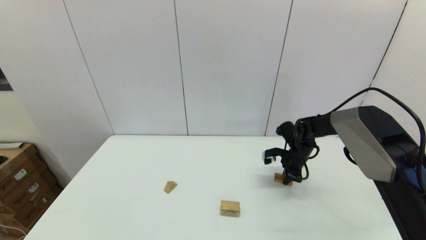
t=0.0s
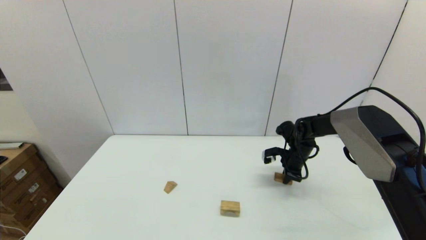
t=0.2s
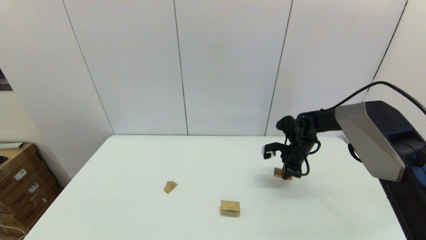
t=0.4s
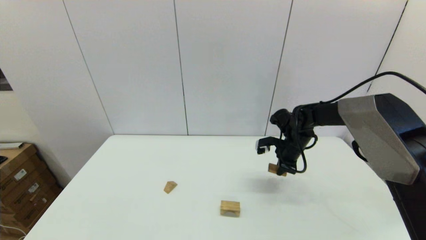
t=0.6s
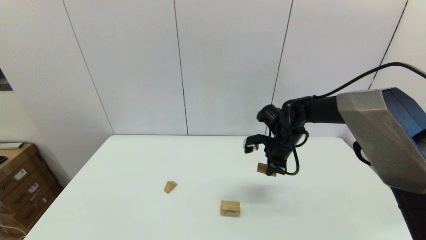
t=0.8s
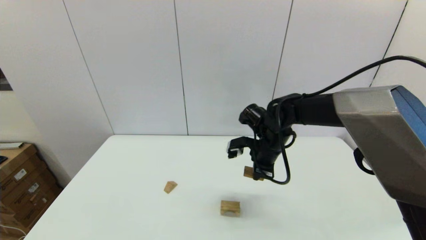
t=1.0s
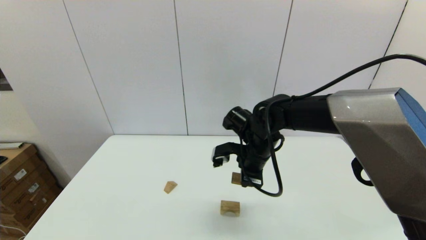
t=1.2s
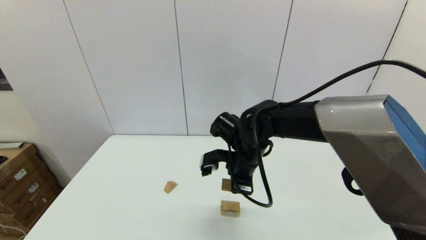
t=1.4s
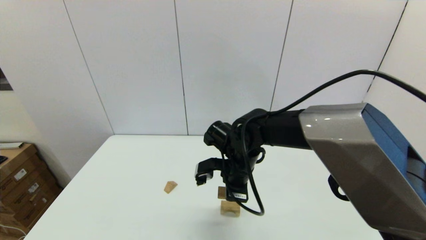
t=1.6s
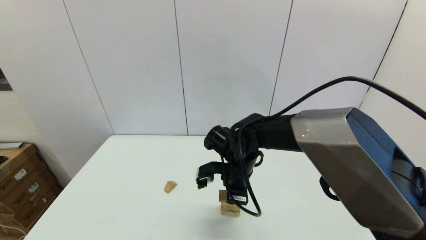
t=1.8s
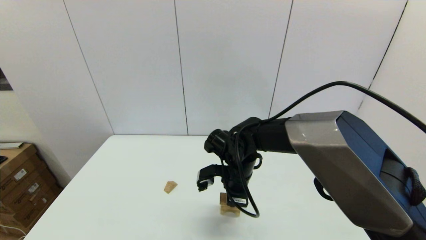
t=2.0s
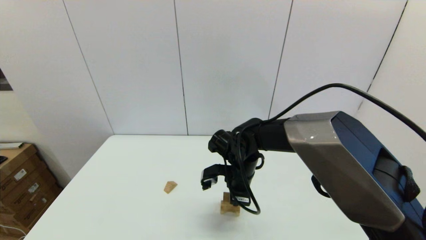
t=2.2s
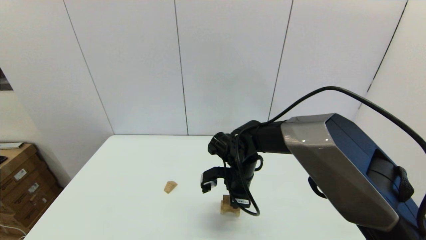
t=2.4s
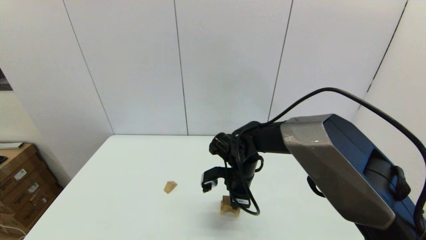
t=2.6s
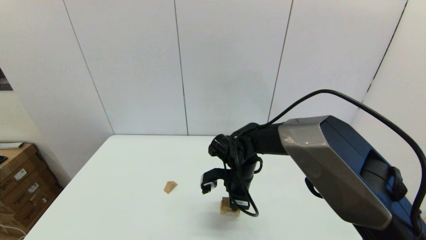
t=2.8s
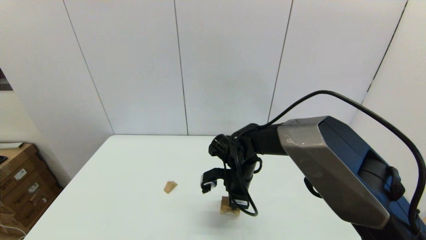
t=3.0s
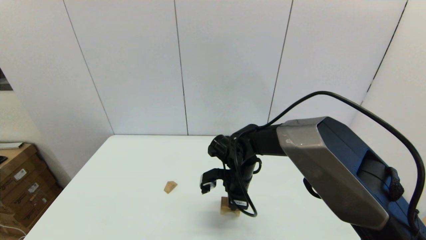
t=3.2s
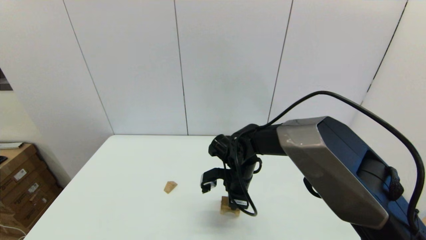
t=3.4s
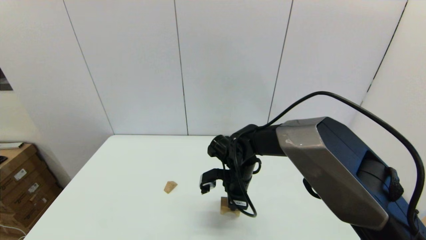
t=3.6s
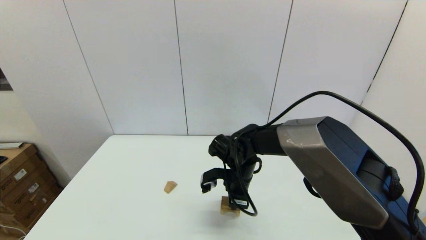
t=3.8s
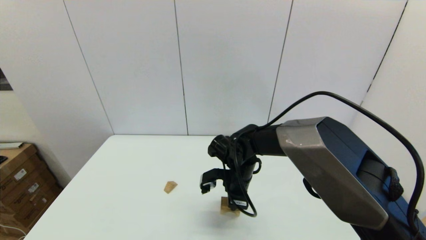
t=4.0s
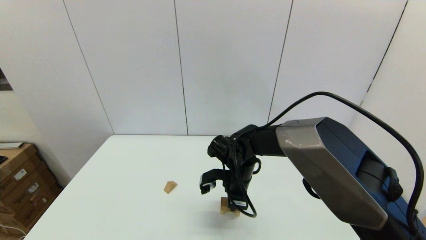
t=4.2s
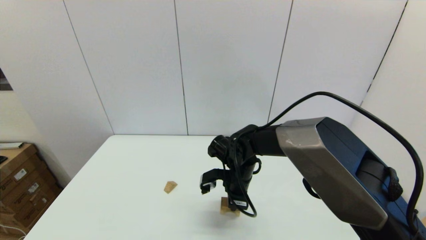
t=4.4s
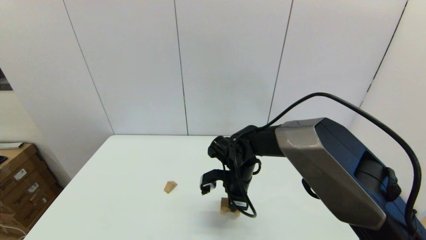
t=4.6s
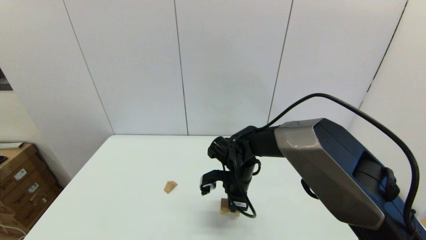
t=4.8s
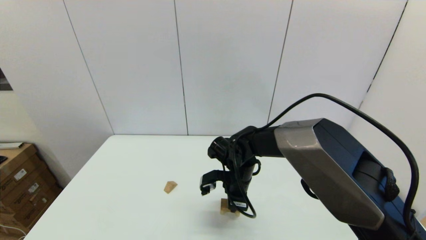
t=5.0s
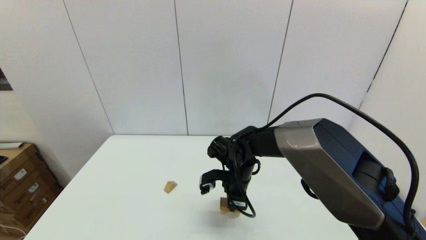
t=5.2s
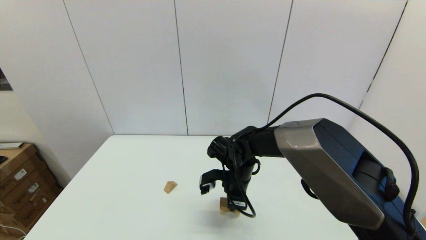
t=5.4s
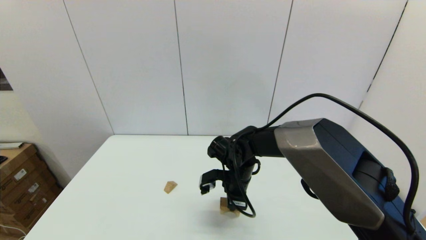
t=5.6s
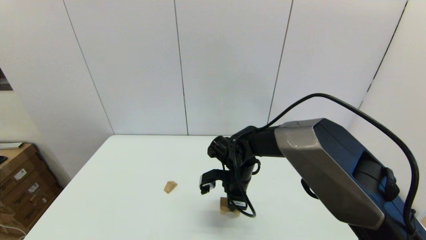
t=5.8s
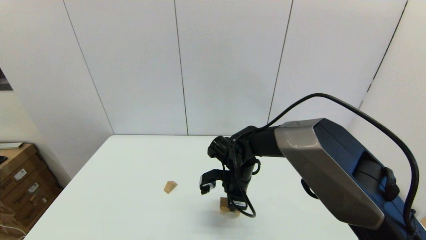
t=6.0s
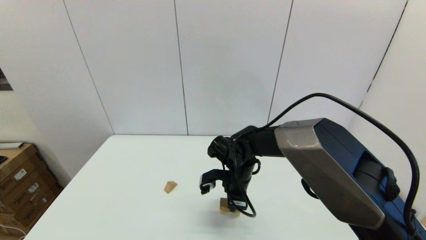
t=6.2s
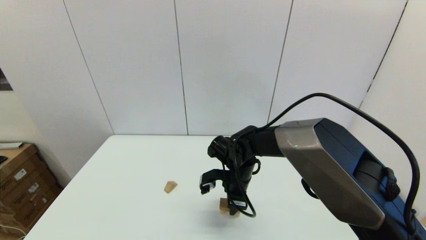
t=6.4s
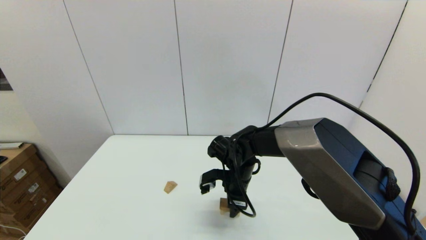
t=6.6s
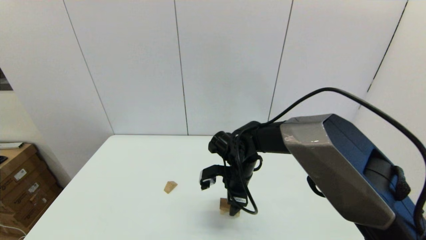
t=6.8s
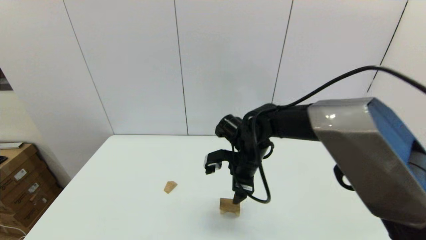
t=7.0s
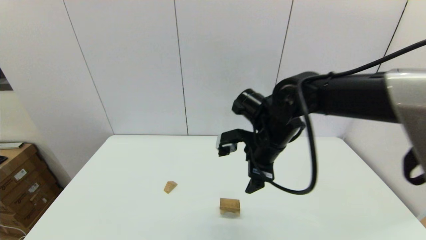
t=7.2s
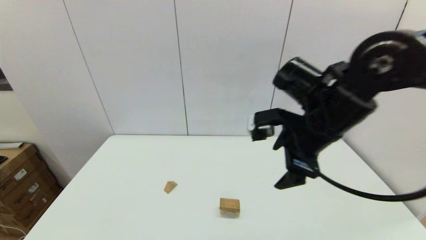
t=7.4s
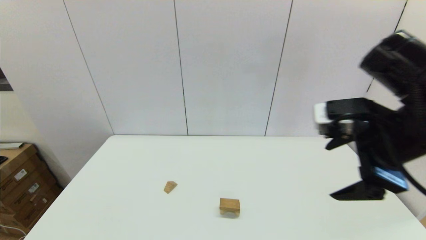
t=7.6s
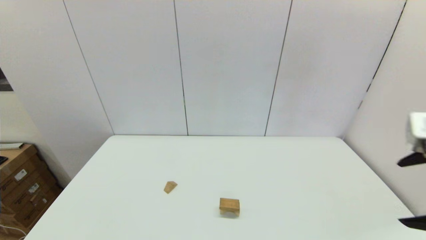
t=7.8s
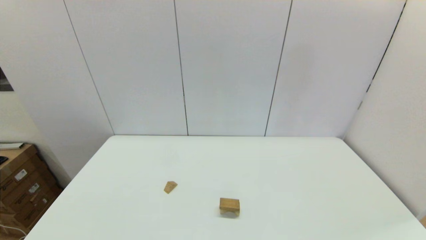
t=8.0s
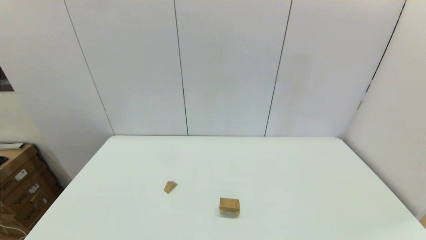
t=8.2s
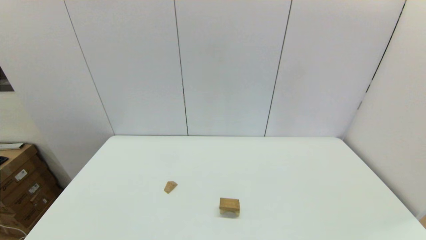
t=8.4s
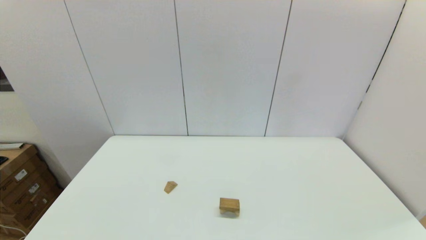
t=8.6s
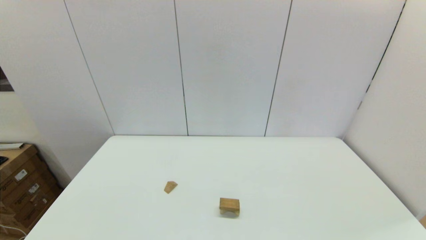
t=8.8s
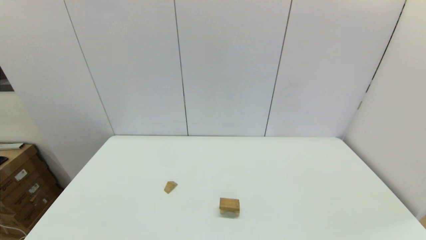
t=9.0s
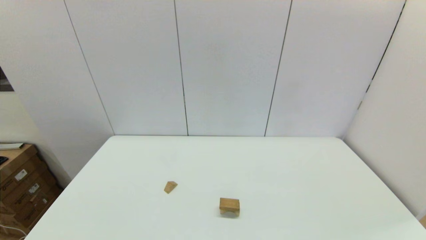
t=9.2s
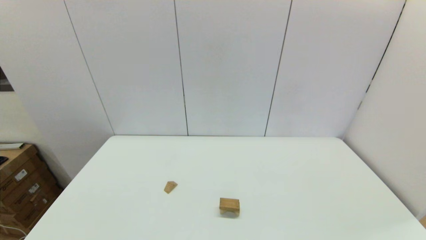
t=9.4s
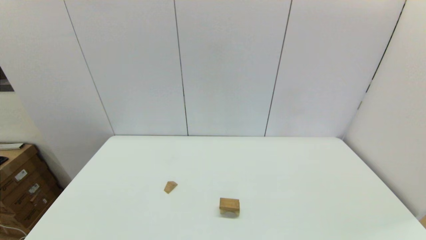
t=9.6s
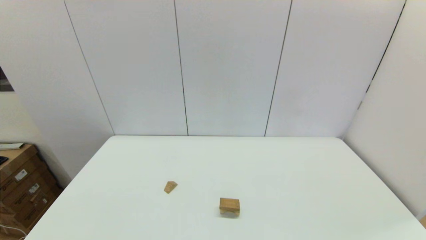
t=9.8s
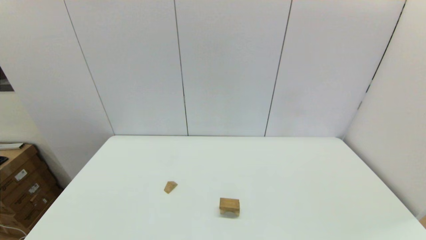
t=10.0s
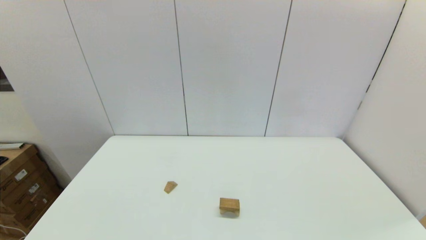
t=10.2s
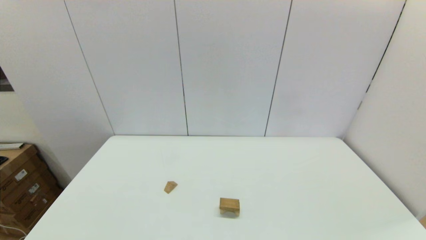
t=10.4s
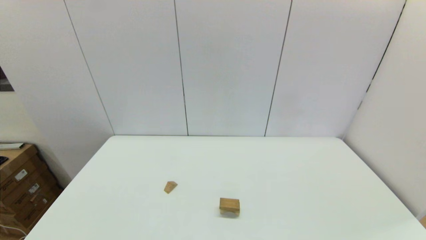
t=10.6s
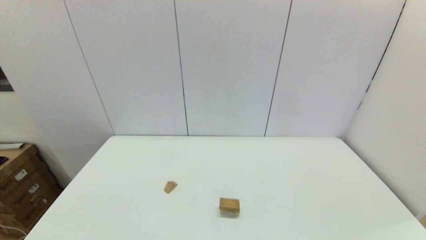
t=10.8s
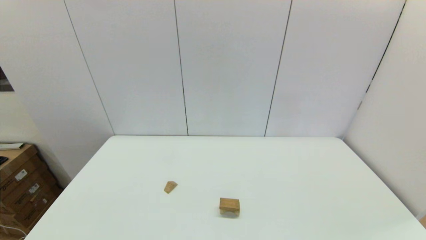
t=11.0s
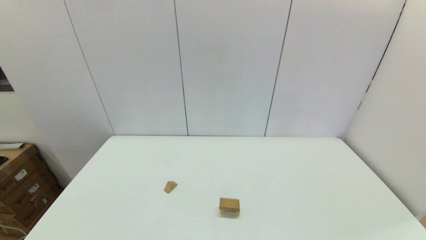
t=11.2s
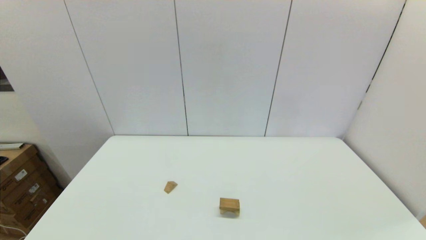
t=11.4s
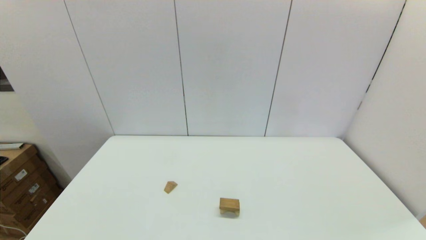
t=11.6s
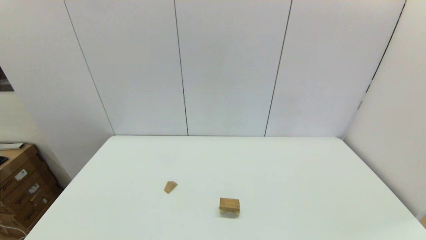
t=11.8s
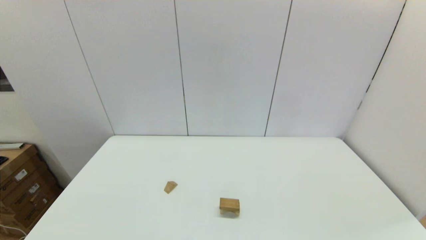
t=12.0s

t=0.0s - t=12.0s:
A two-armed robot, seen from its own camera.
Task of the whole recording: place the arched building blocks in the center of the table, set up the rectangular building blocks, and then set up the triangular building blocks.
Step, t=0.2s - t=6.0s: Place the box-shaped block onto the arch-shaped block with the right gripper.
t=0.0s - t=1.6s: The right gripper is displaced to the left, backward and upward by some 25 cm.
t=1.6s - t=3.0s: The right gripper shifts approximately 5 cm downward.
t=3.0s - t=6.0s: Both grippers stay about where they are.
t=6.0s - t=7.6s: The right gripper moves upward, to the right and backward, some 35 cm, and opens its fingers.
t=7.6s - t=9.0s: The right gripper goes approximately 30 cm backward and downward.

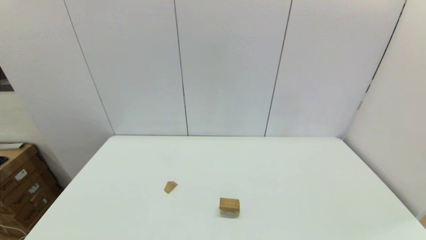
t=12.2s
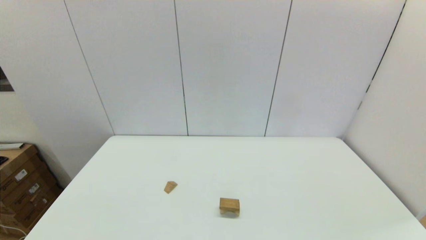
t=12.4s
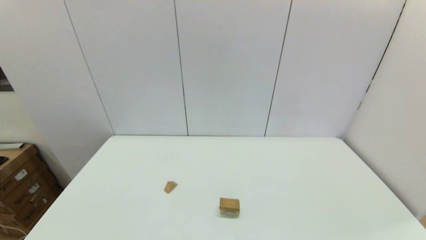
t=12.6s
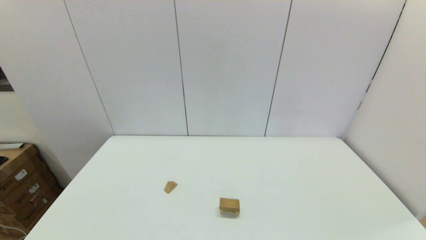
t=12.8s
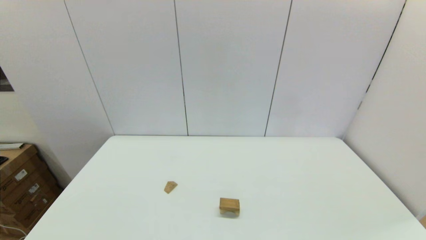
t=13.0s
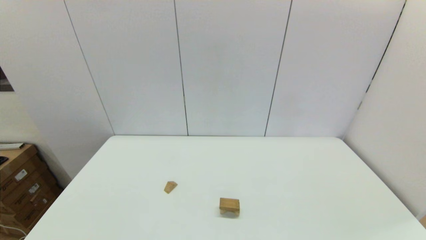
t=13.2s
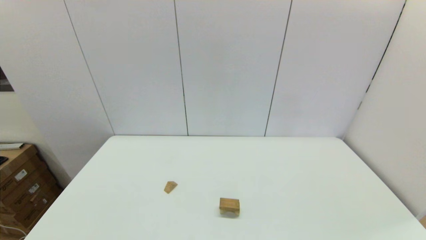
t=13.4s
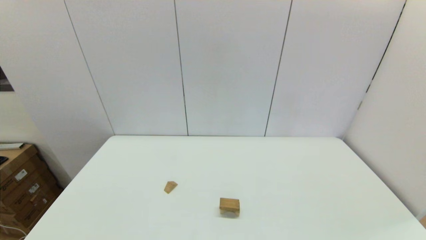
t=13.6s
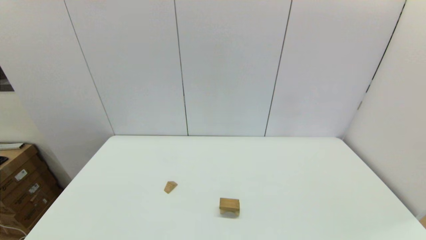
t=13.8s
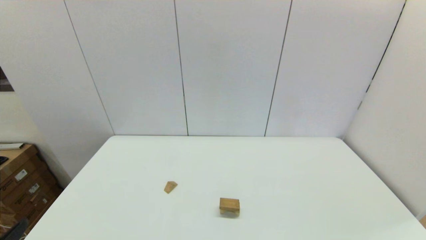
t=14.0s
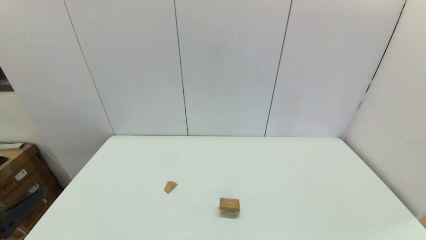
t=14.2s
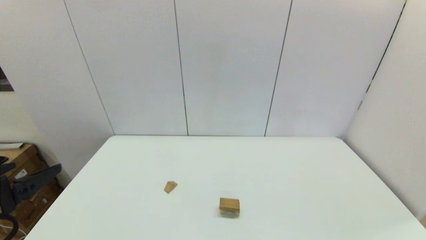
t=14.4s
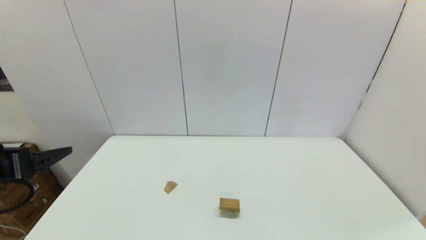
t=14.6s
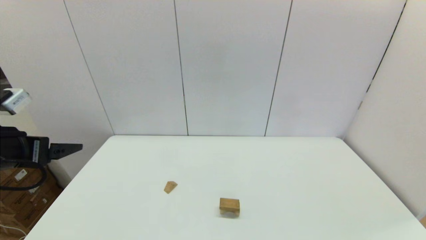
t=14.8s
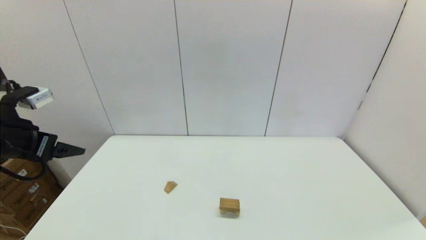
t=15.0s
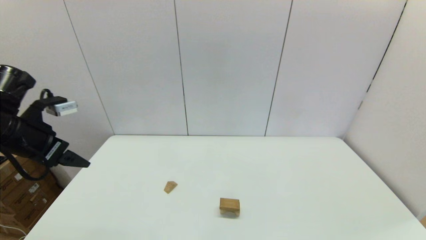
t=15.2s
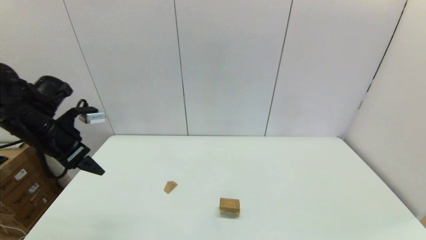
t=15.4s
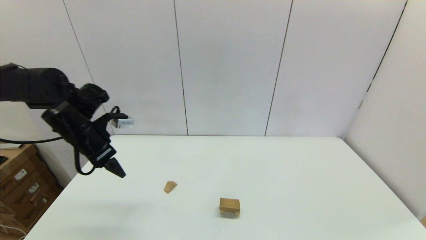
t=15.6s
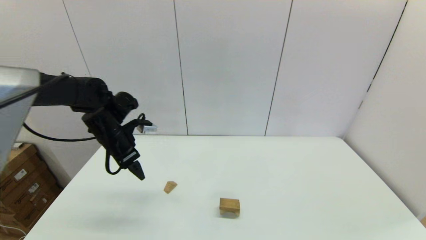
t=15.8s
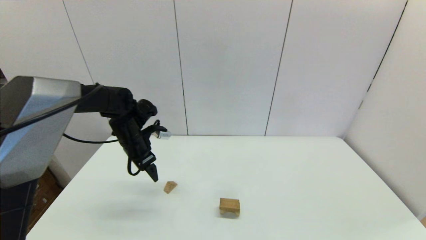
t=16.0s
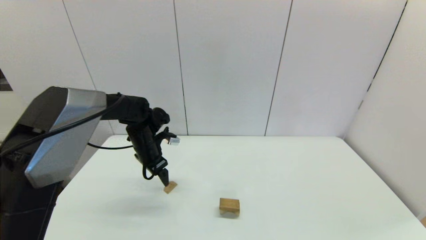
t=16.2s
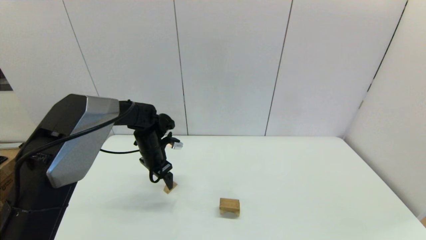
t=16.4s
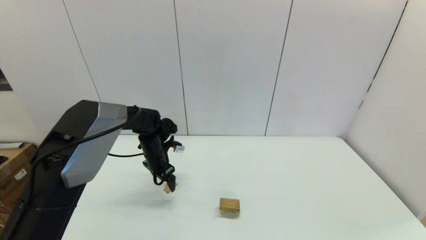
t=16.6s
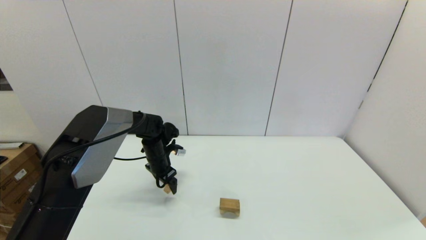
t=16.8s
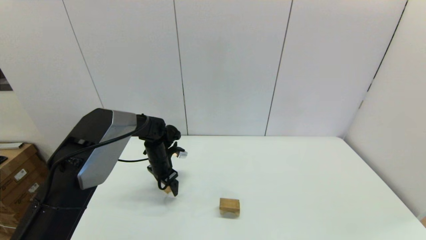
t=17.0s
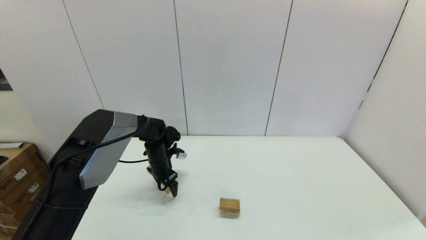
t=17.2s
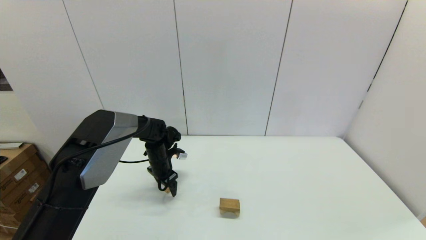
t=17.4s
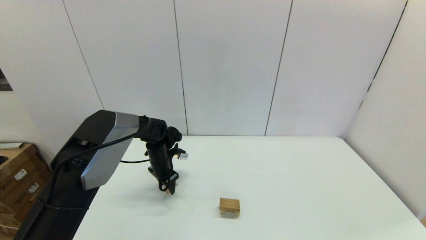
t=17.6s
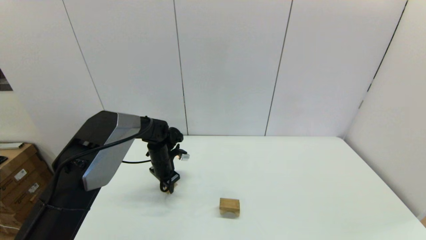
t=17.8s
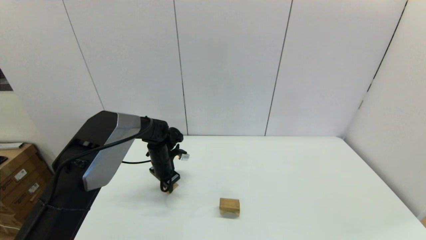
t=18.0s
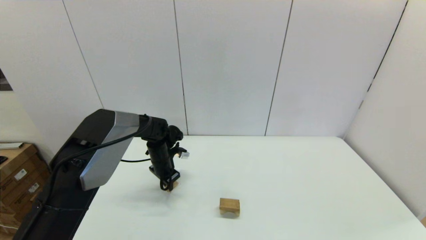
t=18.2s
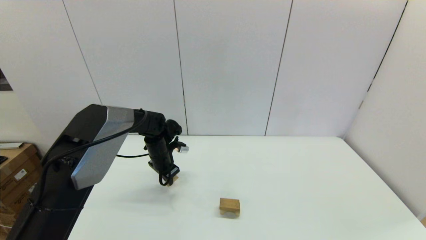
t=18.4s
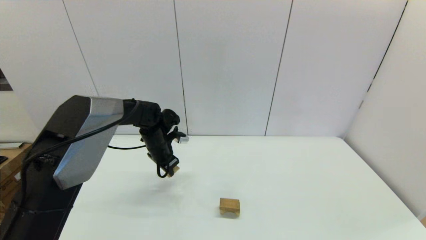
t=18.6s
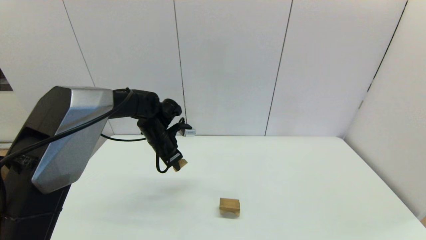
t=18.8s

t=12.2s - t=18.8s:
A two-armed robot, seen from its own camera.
Task of the whole recording: place the arched building blocks in the center of the table, set up the rectangular building blocks, and then set up the triangular building blocks.
Step, t=12.2s - t=18.0s: Grasp the triangle-shaped block with the left gripper.
t=13.8s - t=15.4s: The left gripper travels forward by approximately 30 cm.
t=15.4s - t=17.2s: The left gripper is displaced downward, to the right and forward by roughly 30 cm.
t=17.2s - t=18.8s: The left gripper moves upward, about 10 cm, and closes.
